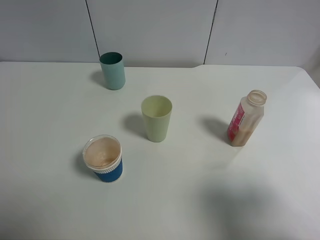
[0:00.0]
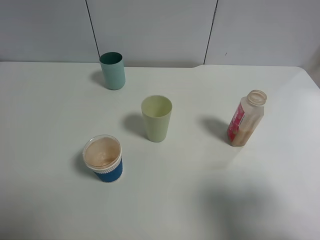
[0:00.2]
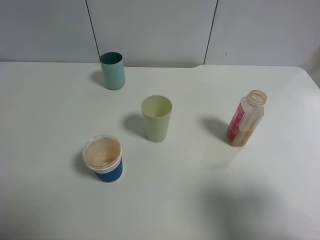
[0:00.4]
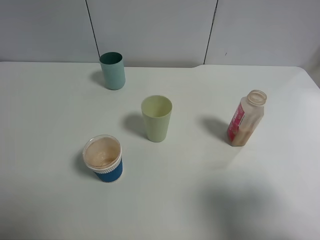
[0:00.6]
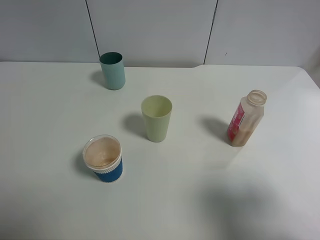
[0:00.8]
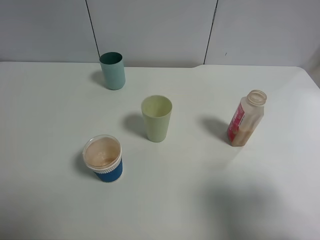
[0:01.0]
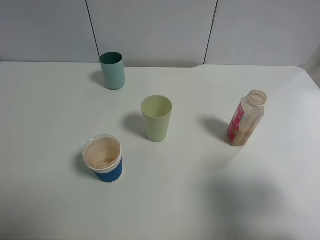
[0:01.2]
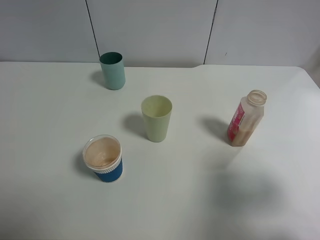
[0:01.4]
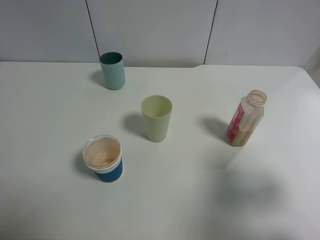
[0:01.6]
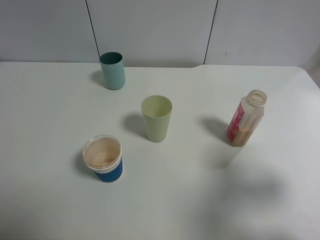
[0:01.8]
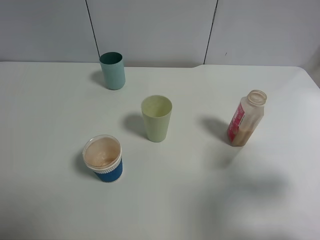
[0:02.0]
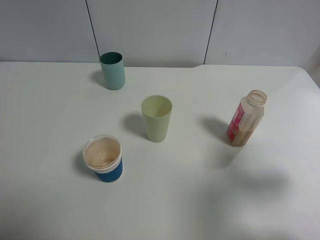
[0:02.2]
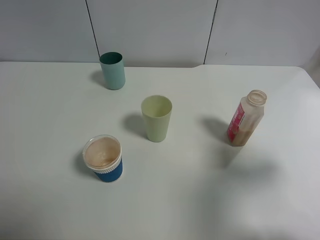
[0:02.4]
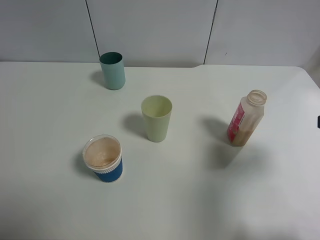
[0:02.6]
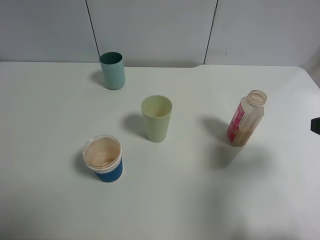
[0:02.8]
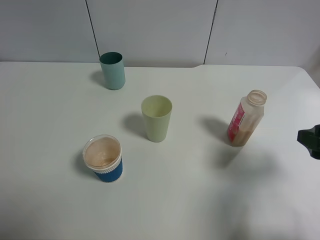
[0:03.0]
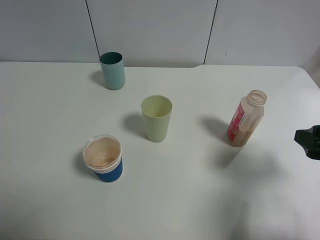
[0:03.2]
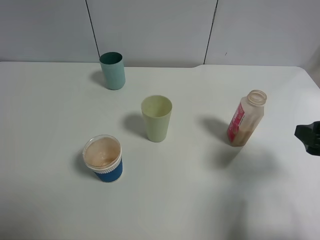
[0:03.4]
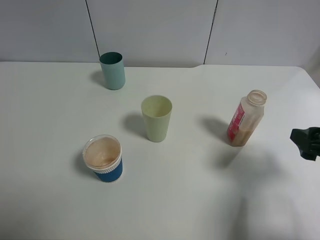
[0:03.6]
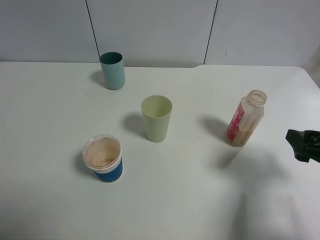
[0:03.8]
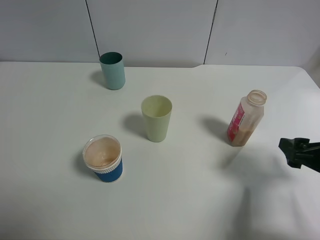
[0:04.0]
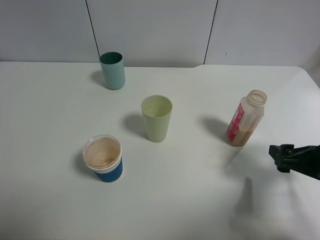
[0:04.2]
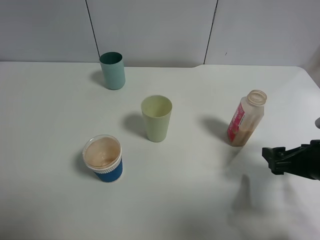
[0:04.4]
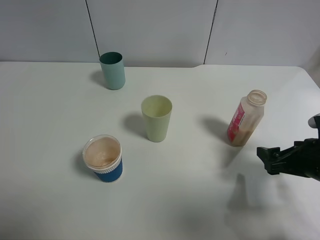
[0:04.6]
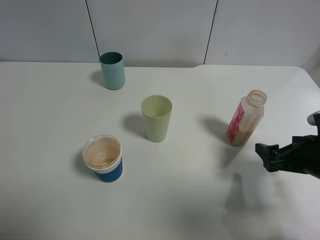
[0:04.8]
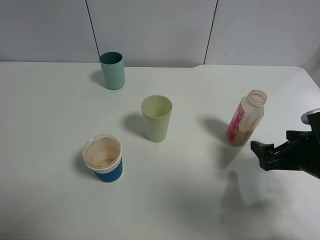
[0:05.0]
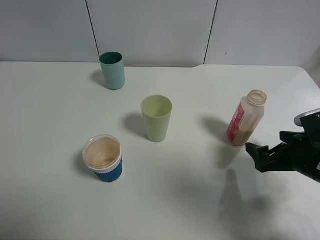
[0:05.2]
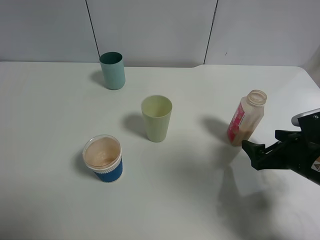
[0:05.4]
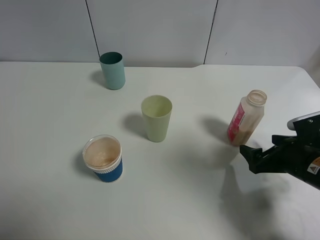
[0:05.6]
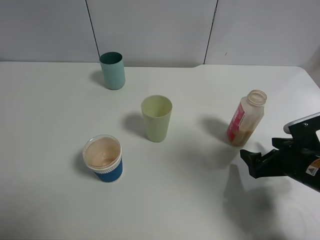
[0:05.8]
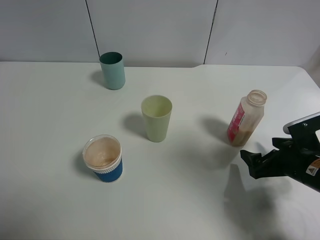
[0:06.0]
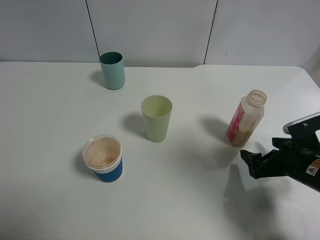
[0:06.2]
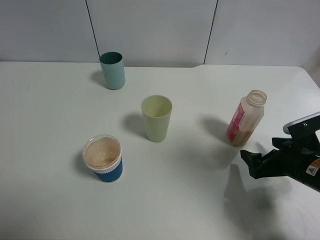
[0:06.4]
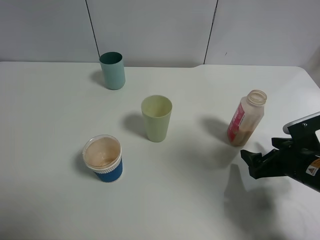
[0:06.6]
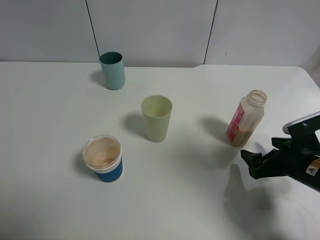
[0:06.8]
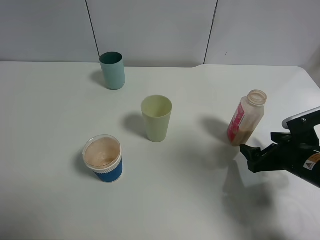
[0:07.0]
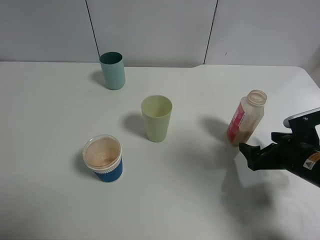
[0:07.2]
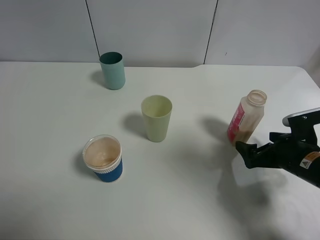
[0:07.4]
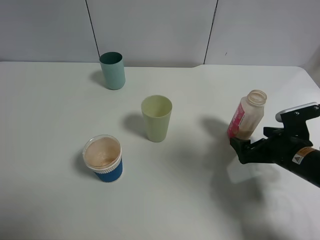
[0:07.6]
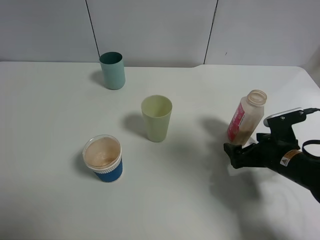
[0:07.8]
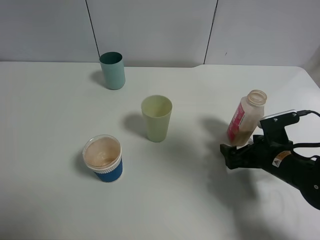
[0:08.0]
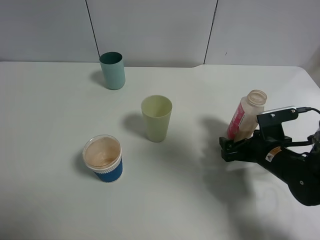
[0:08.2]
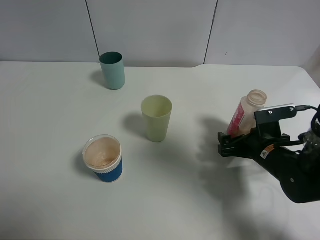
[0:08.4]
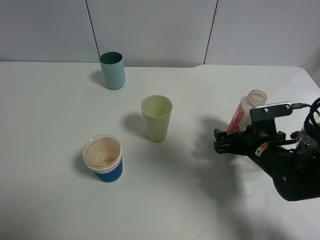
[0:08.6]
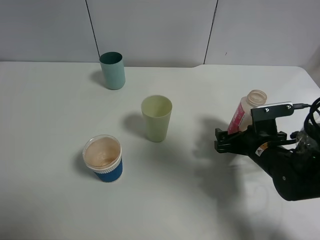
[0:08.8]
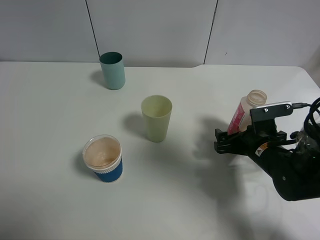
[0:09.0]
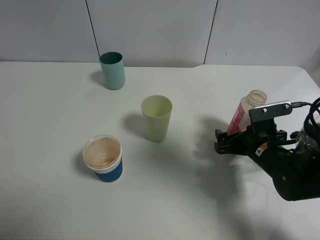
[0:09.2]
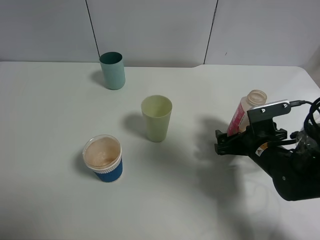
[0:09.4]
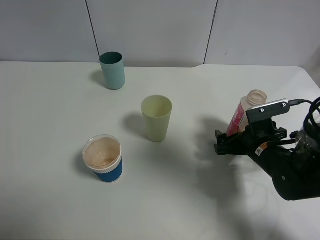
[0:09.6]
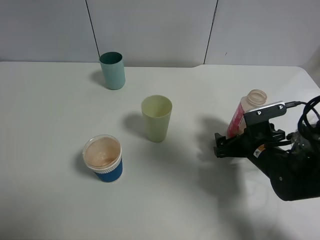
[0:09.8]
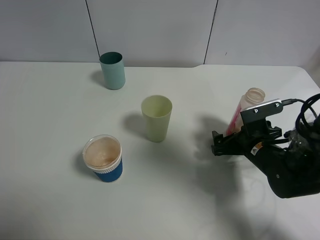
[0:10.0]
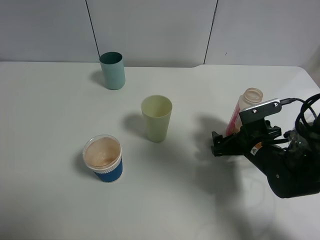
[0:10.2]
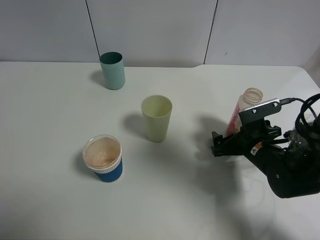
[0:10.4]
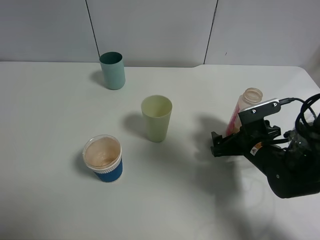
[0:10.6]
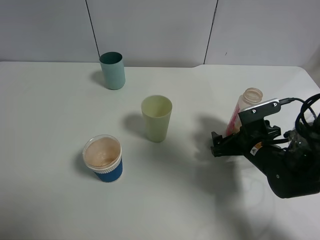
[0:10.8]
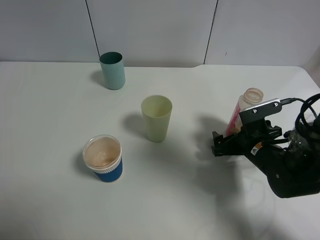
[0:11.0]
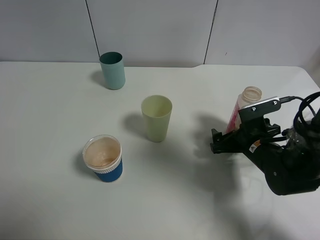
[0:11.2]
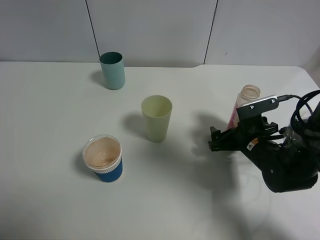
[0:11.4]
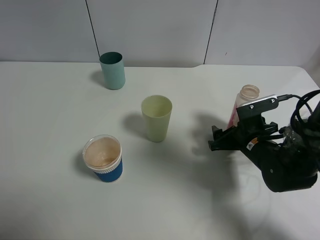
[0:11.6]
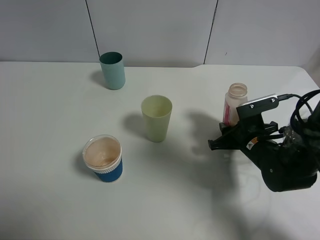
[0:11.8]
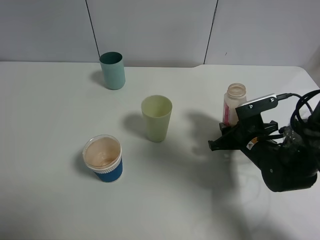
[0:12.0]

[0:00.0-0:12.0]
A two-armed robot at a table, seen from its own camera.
Task of the whole recording: use a clamp to hold the bottle of the drink, pour the beverage into a random cup, then clamp the cup containing the drink and pour the drink into another random cup.
0:00.0 to 0:01.6: The right gripper changes place by approximately 5 cm.
0:01.6 to 0:03.0: The right gripper goes approximately 5 cm forward.
0:03.0 to 0:04.4: The right gripper shifts approximately 10 cm downward.
0:04.4 to 0:06.0: The right gripper shifts by some 5 cm.
0:06.0 to 0:07.6: The grippers make only small movements.
0:07.6 to 0:09.0: The right gripper travels to the left by approximately 5 cm.
0:09.0 to 0:10.4: There are only small adjustments of the grippers.
0:10.4 to 0:12.0: The right gripper closes its fingers.

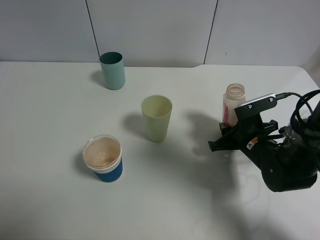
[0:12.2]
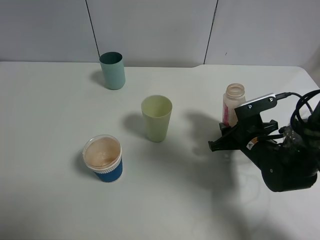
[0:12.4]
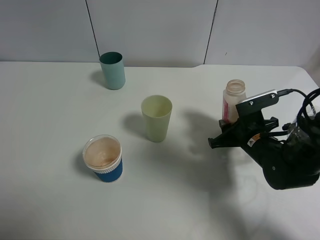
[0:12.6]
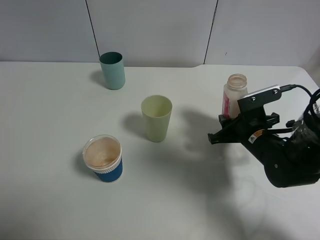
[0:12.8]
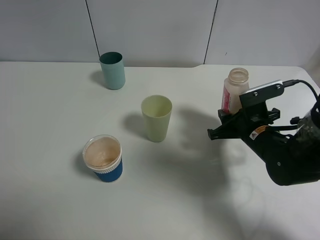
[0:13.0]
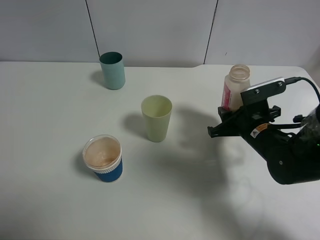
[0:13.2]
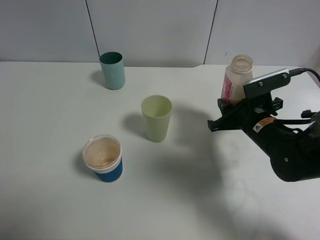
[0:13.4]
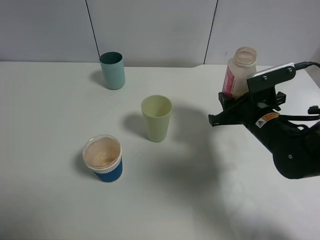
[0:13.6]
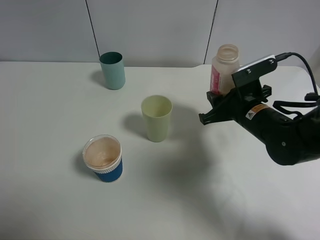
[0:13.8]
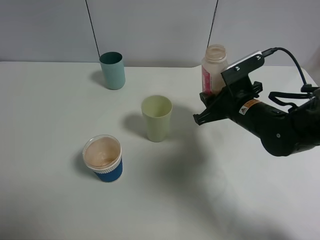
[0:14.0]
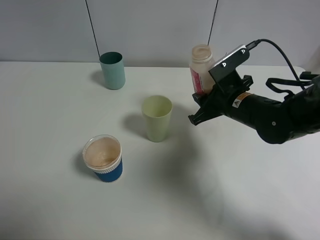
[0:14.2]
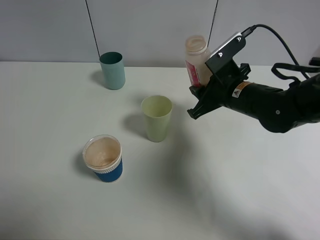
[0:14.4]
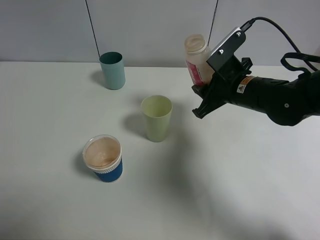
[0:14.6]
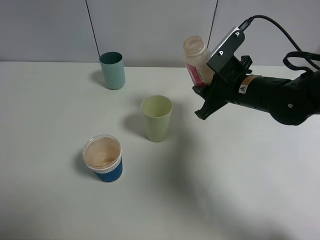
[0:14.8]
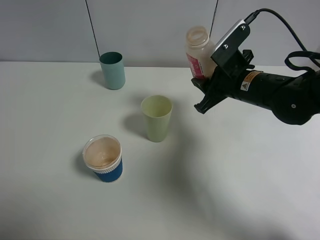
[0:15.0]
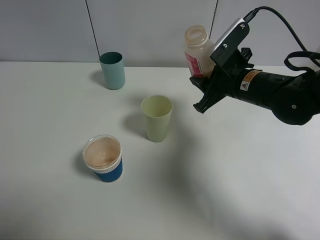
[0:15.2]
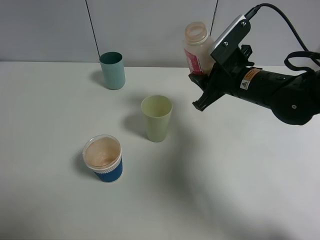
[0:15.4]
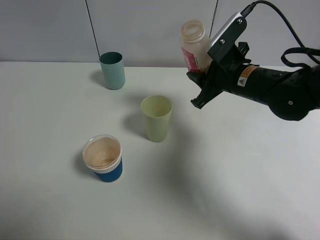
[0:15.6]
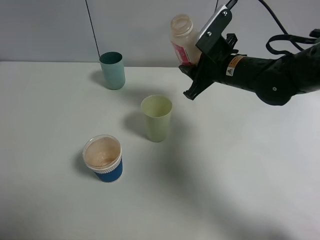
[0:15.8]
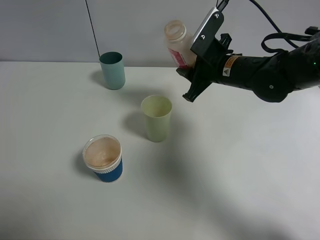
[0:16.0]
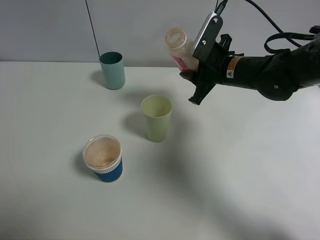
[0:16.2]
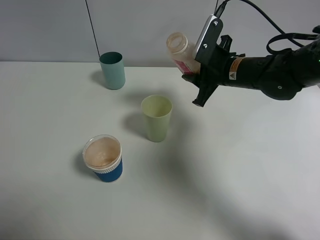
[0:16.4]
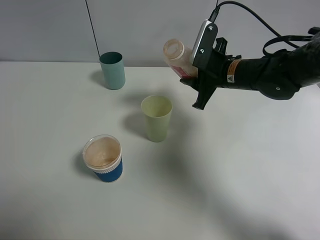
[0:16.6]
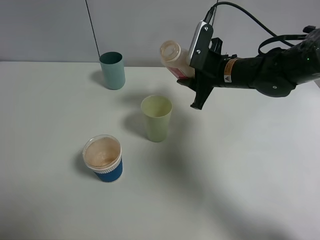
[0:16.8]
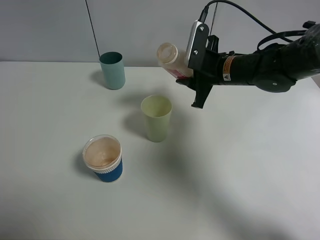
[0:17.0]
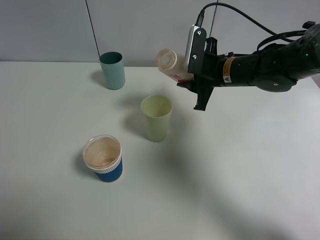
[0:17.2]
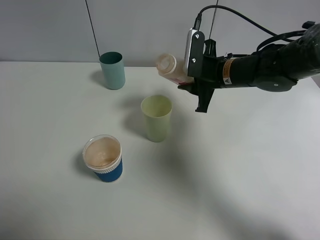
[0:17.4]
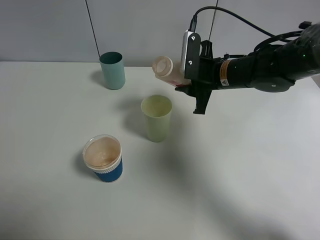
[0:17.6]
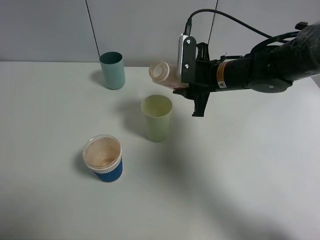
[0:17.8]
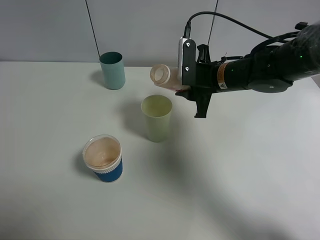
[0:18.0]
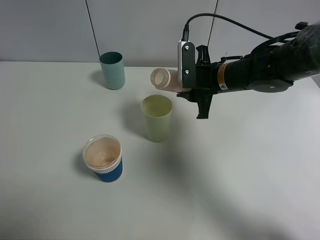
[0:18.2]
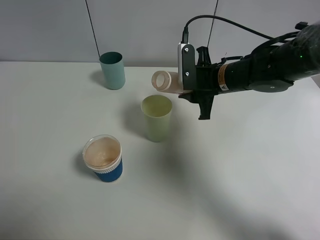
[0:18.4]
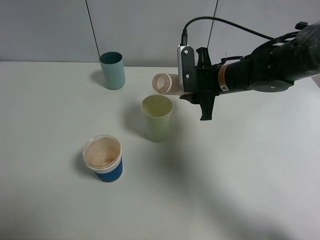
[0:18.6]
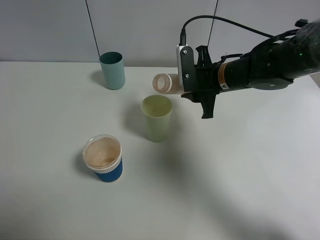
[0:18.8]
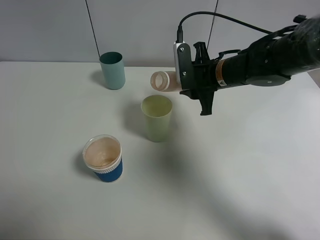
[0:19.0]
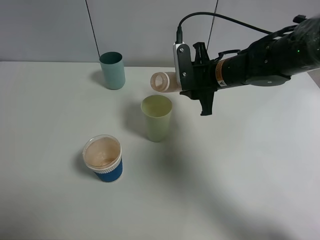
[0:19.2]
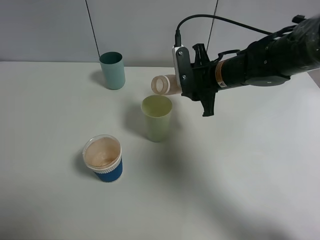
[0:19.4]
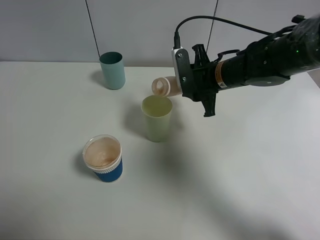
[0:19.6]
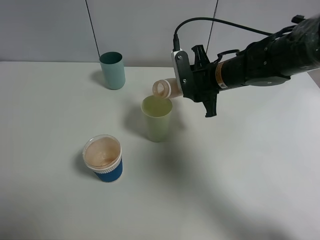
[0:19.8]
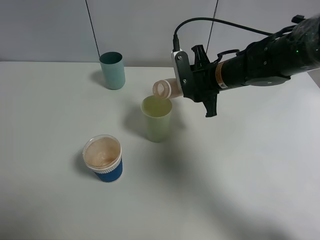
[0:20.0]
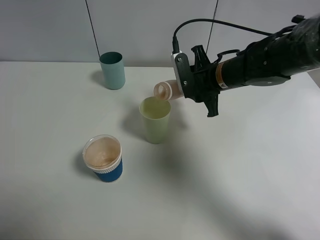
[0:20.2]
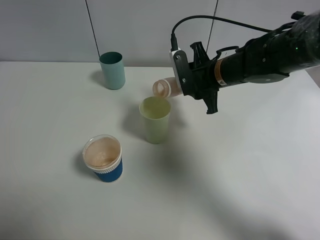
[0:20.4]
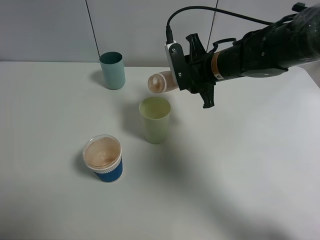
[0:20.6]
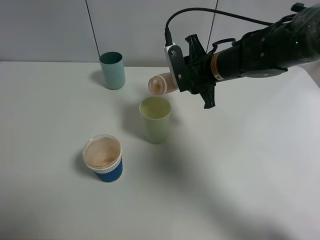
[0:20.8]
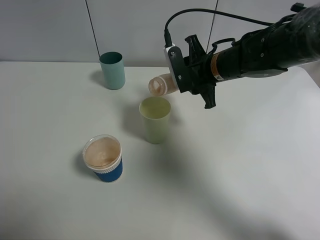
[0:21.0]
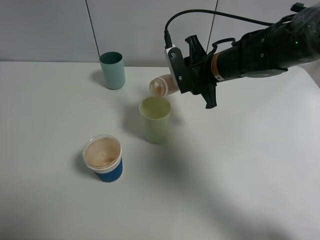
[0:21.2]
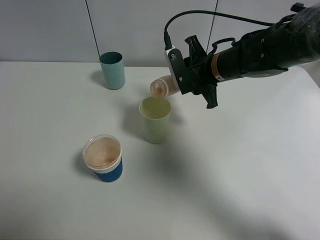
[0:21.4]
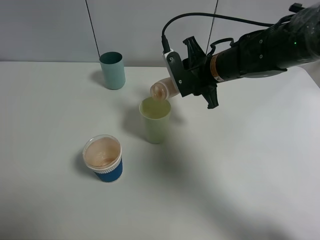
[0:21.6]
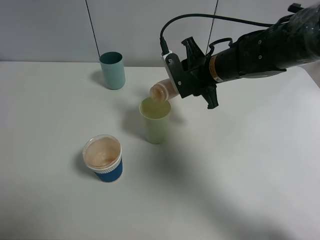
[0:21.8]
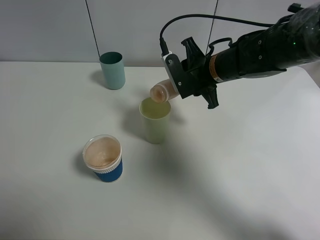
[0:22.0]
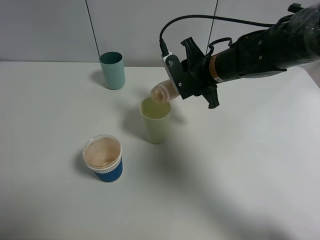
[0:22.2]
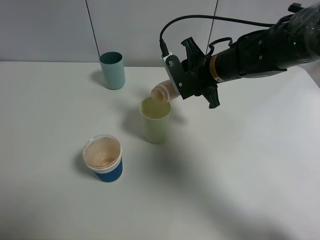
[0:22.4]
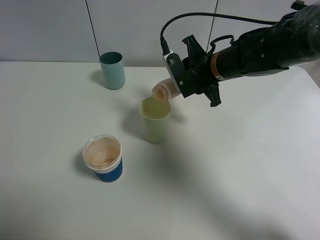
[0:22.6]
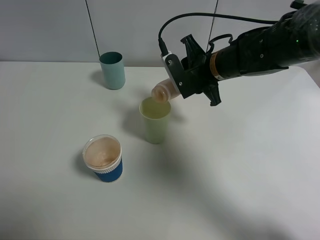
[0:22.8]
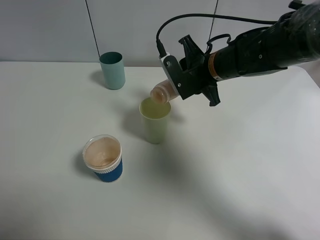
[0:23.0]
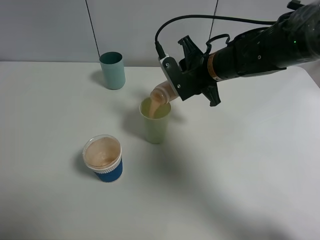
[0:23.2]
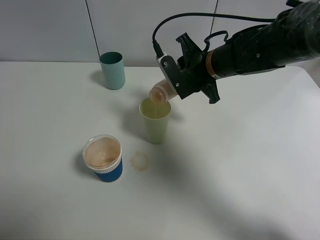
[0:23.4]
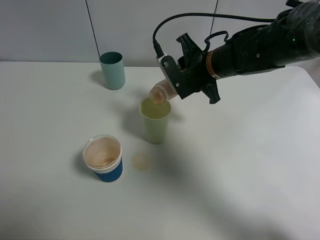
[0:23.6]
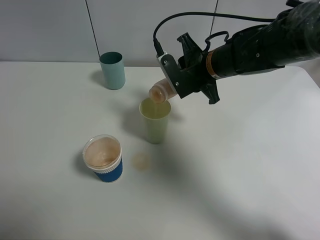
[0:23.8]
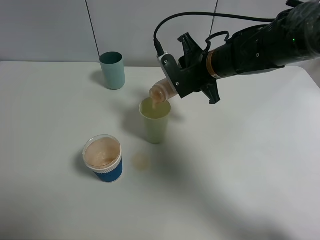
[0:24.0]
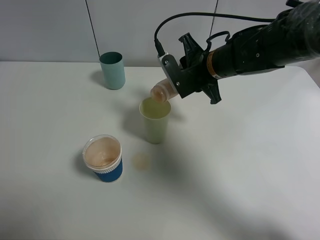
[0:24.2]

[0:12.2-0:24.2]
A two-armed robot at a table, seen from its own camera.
Task of the whole recording: use a clamp to hold the bottle of the drink, pour the beverage into a random cup, then clamp the cup containing the drink and pour the drink into another random cup.
0:12.2 to 0:13.8: The right gripper moves upward, approximately 5 cm.
0:13.8 to 0:15.2: The right gripper changes place by about 5 cm.
0:15.2 to 0:16.6: There are only small adjustments of the grippers.
0:18.2 to 0:19.8: The grippers stay close to where they were, moving slightly.
0:19.8 to 0:22.6: The grippers make only small movements.
0:22.6 to 0:24.2: There are only small adjustments of the grippers.
